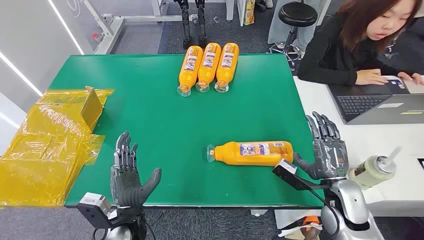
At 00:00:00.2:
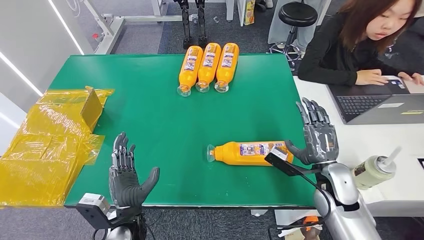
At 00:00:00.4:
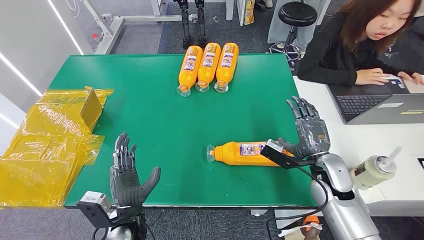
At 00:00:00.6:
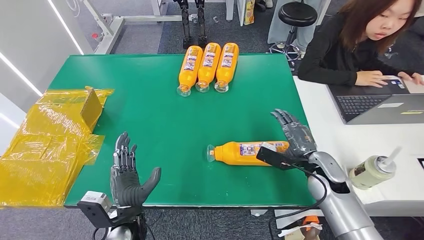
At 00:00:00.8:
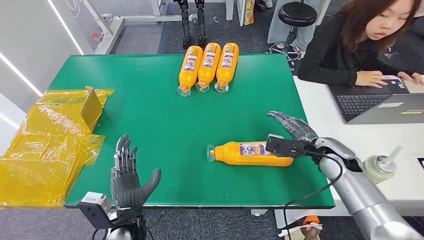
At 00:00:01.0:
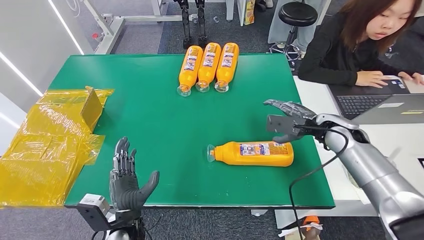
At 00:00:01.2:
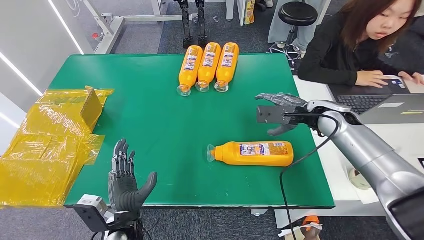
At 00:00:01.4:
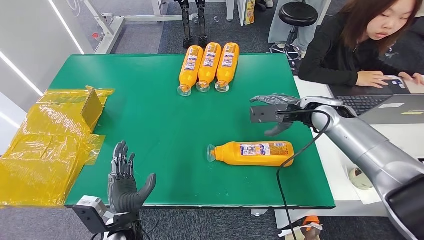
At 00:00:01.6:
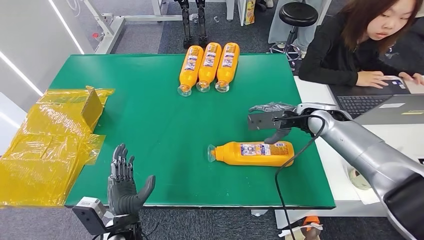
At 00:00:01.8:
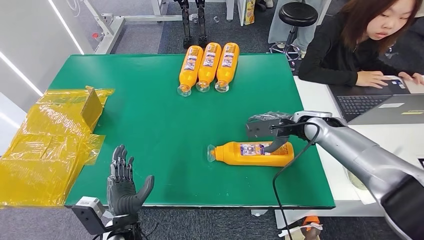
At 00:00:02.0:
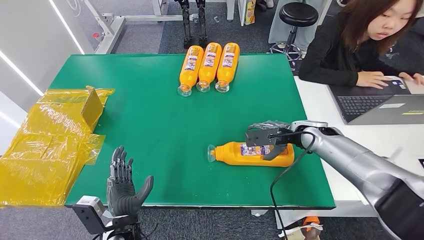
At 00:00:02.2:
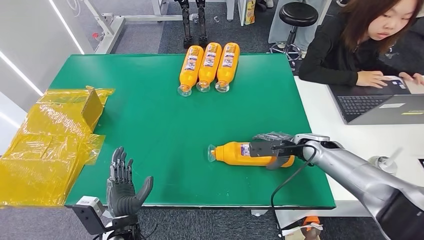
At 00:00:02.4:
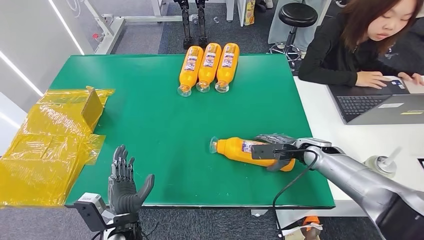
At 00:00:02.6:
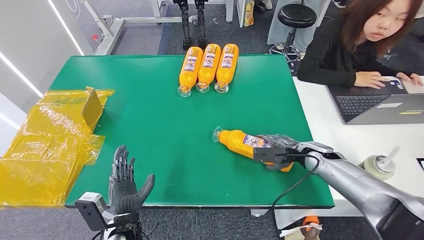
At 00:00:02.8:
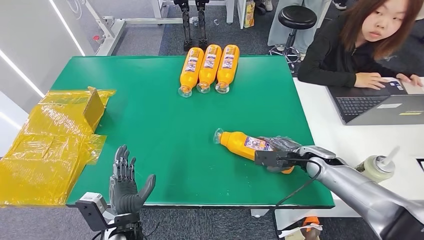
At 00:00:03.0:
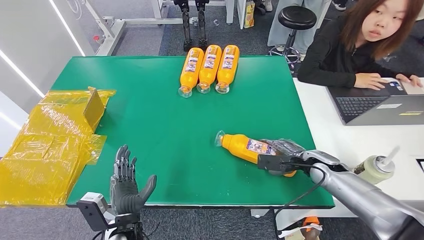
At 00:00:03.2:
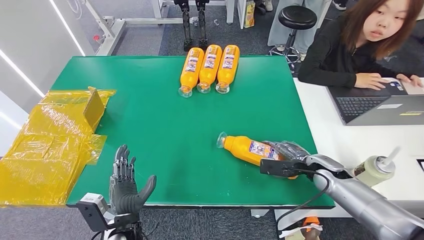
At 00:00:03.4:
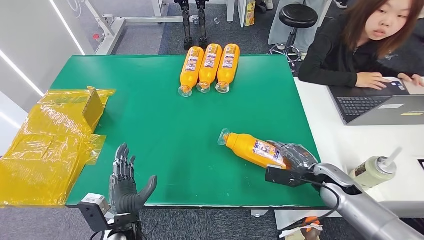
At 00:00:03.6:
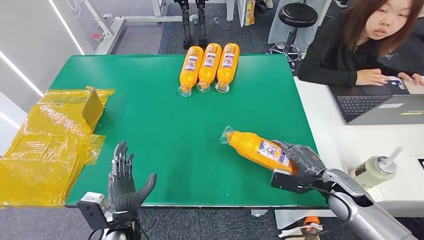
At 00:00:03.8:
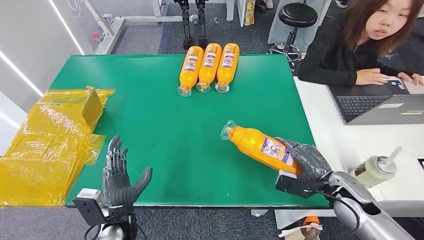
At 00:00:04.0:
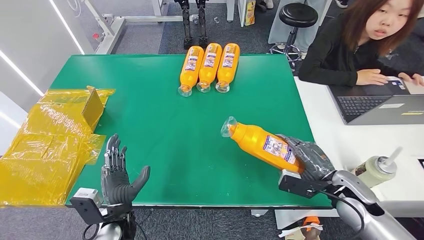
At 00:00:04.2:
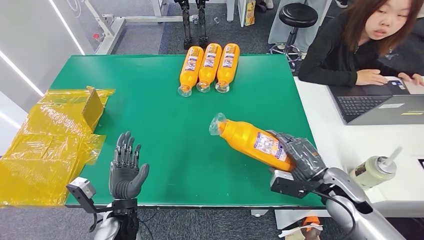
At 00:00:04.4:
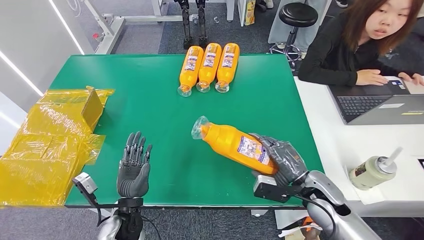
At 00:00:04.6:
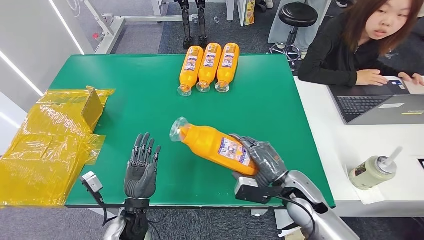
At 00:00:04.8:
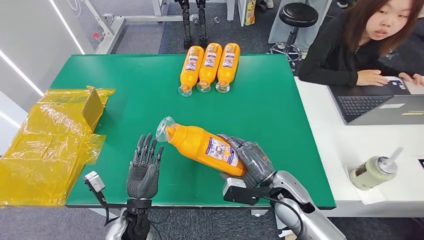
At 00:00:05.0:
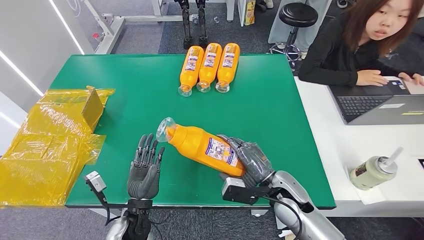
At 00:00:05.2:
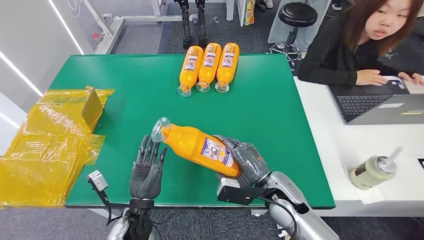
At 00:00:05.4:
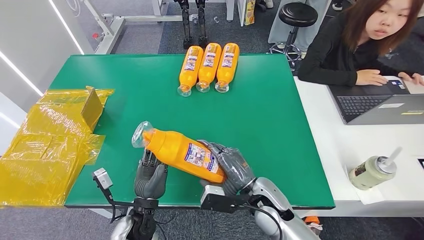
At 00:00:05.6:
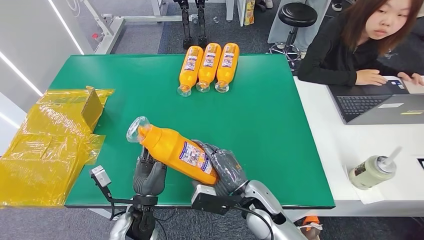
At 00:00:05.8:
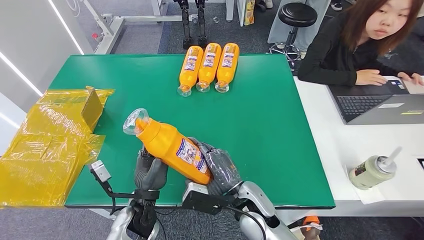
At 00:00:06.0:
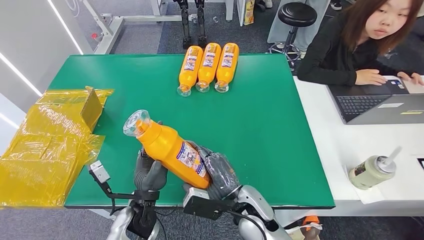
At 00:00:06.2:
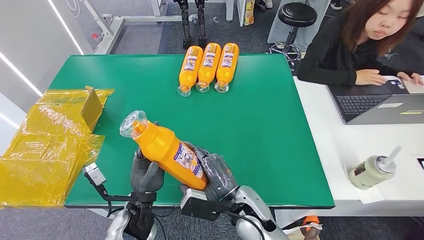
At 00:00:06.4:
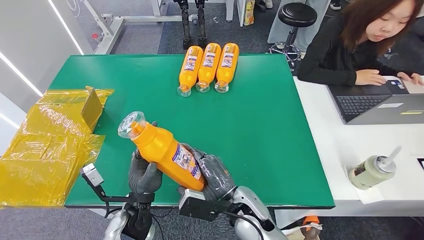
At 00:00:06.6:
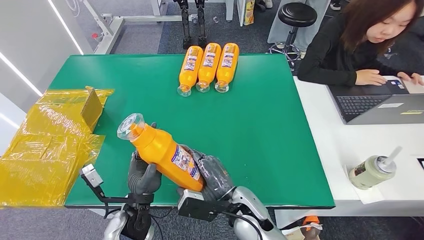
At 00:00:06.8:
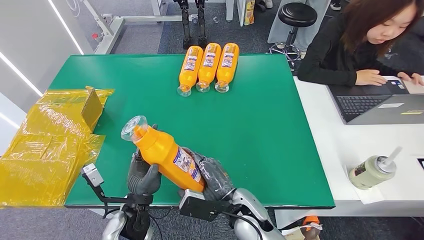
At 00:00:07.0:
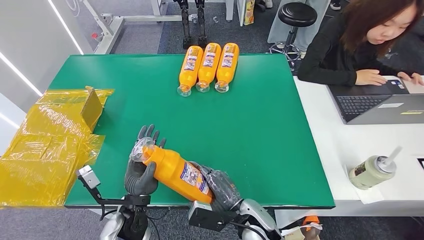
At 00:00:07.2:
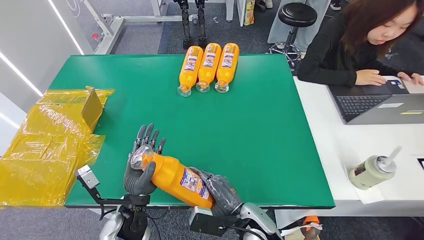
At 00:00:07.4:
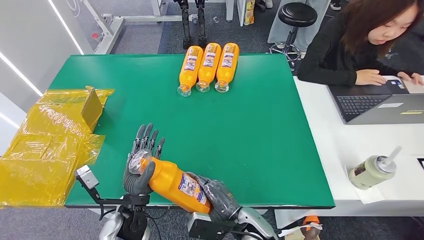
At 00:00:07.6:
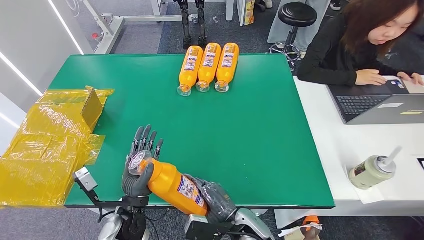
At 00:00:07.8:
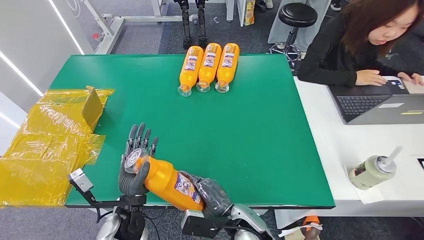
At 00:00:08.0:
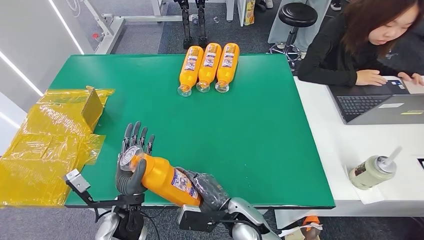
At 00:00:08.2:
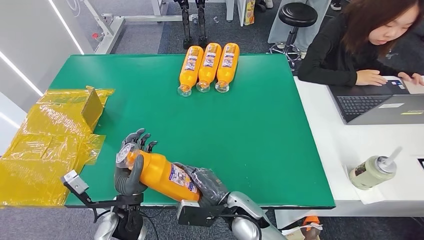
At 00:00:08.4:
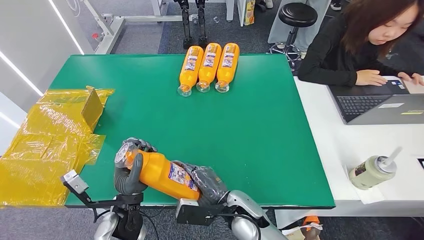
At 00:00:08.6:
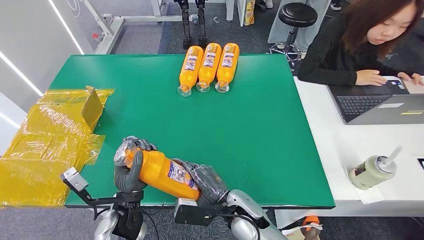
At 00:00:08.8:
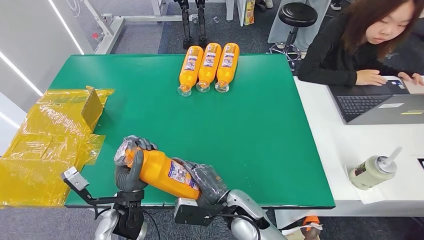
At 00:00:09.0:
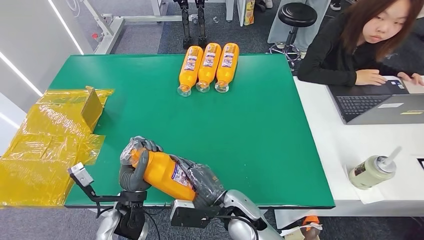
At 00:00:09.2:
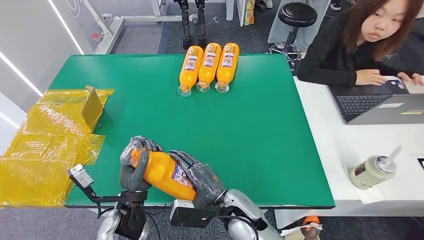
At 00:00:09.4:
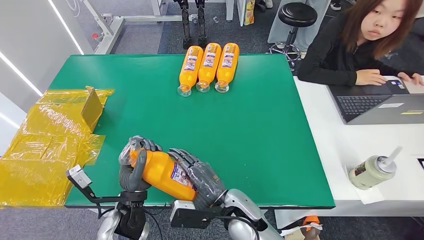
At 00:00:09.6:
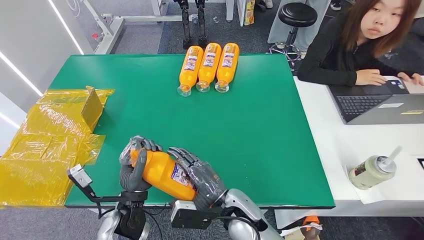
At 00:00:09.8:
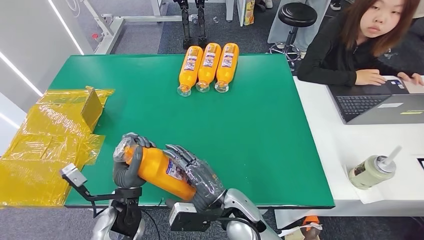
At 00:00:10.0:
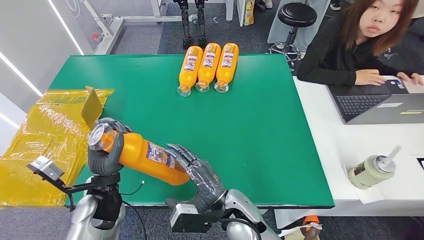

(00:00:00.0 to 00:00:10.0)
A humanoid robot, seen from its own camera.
Step, 00:00:00.0 - 00:00:05.0: Pick up the bottle from the table.
00:00:02.8 - 00:00:04.2: The right hand moves backward, roughly 10 cm.
00:00:04.2 - 00:00:05.8: The right hand moves to the left, approximately 25 cm. Meanwhile the left hand shifts by approximately 5 cm.
00:00:05.8 - 00:00:07.2: The right hand heads downward, covering about 5 cm.
00:00:07.2 - 00:00:08.6: The hands stay close to where they were, moving slightly.
00:00:08.6 - 00:00:10.0: The left hand heads to the left, covering approximately 5 cm.

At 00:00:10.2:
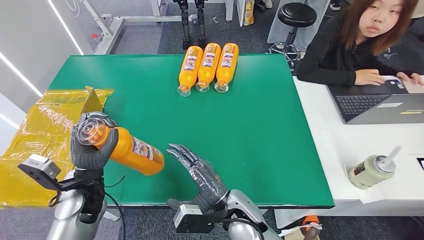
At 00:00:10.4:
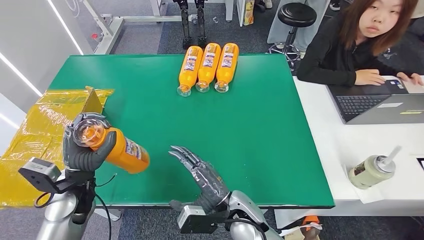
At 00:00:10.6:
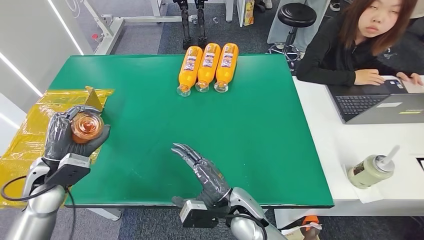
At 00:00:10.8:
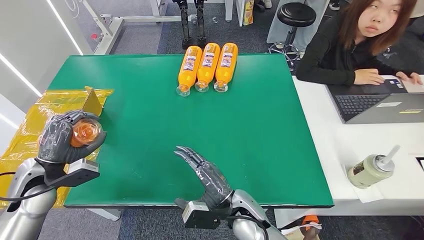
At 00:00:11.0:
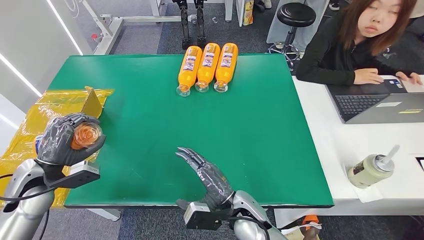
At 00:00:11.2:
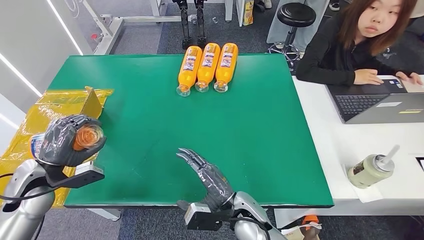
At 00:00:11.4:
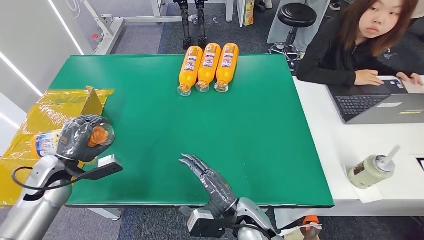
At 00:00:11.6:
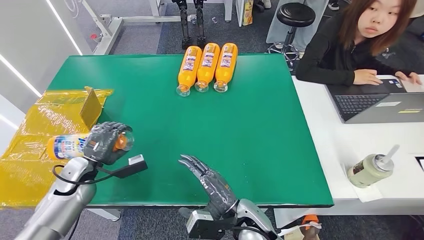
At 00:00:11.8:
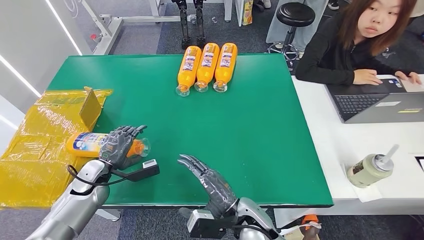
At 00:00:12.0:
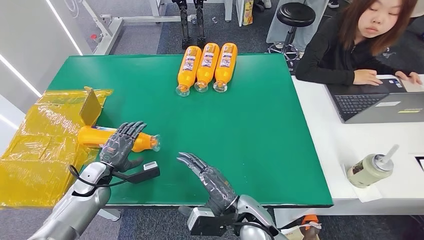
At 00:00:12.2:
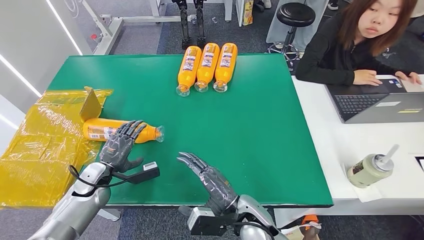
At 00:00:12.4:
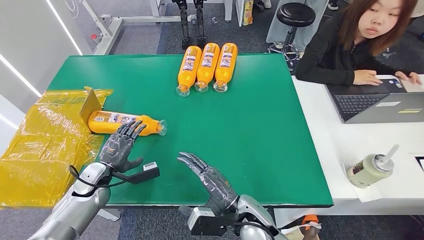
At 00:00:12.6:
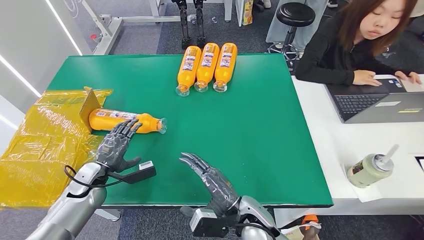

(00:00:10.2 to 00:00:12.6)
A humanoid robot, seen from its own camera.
Step, 00:00:10.2 - 00:00:12.6: Turn the bottle to the front side.
00:00:10.2 - 00:00:11.4: The left hand travels to the left by roughly 15 cm.
00:00:11.4 - 00:00:12.6: The left hand moves downward, about 5 cm.
